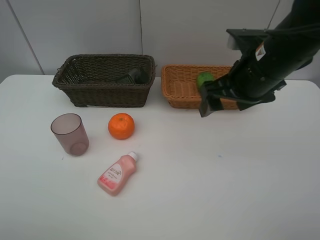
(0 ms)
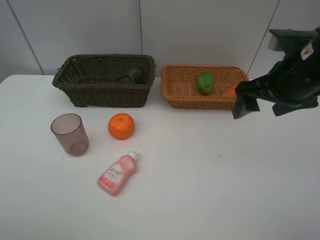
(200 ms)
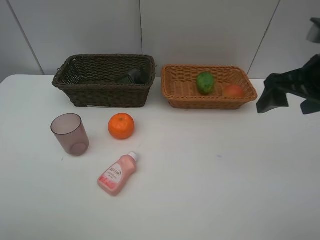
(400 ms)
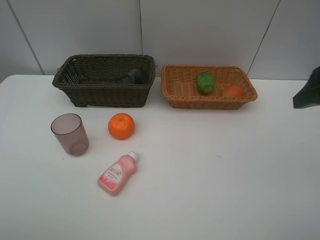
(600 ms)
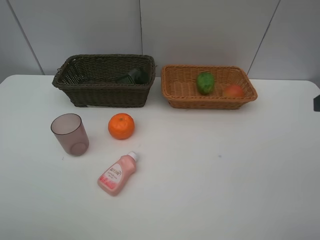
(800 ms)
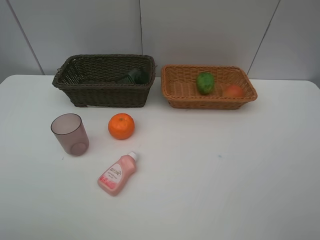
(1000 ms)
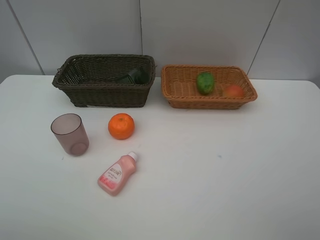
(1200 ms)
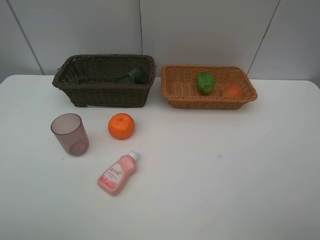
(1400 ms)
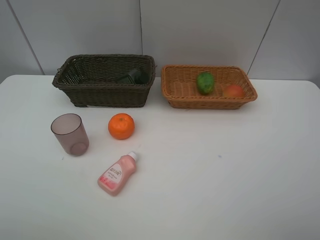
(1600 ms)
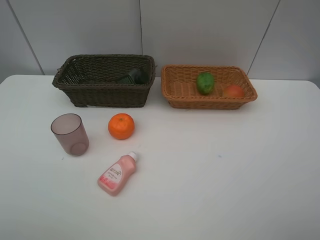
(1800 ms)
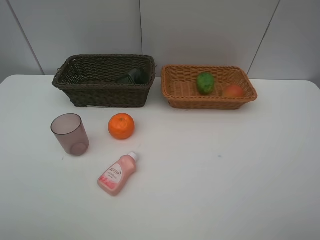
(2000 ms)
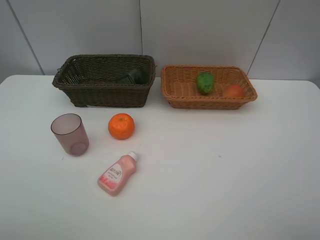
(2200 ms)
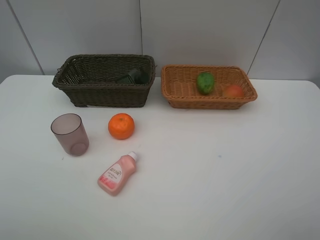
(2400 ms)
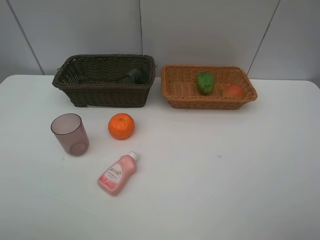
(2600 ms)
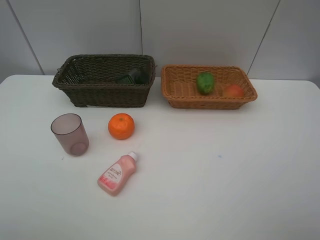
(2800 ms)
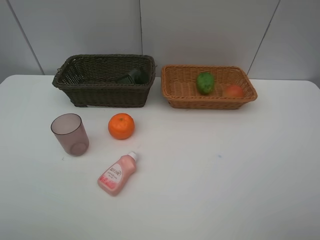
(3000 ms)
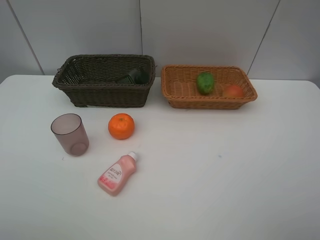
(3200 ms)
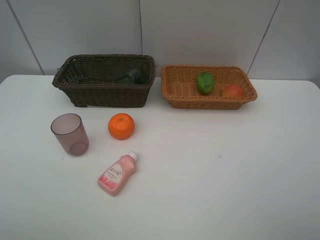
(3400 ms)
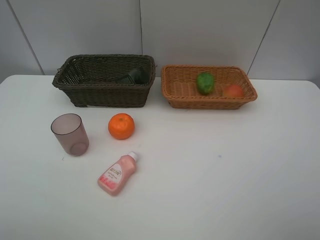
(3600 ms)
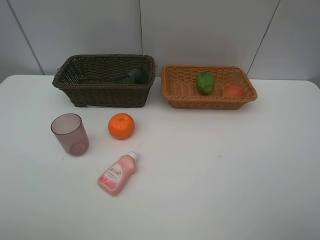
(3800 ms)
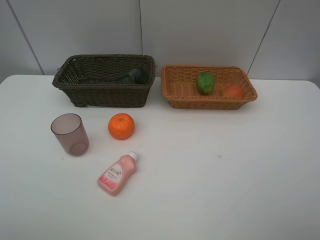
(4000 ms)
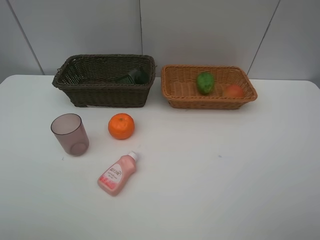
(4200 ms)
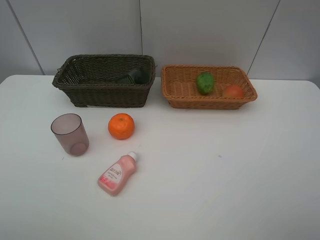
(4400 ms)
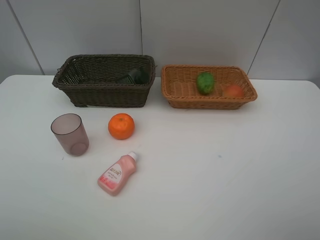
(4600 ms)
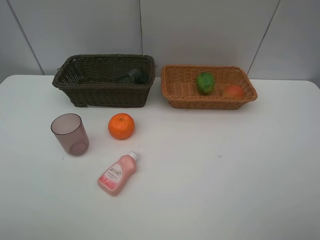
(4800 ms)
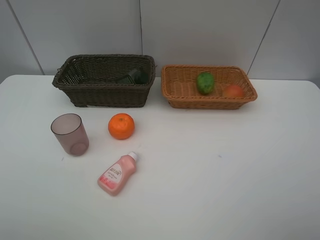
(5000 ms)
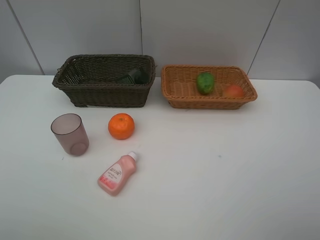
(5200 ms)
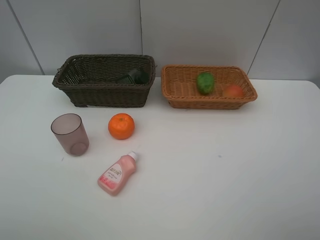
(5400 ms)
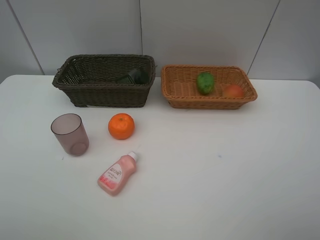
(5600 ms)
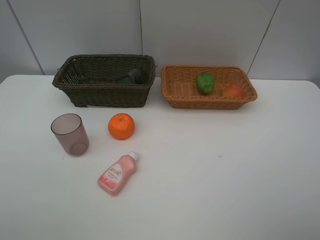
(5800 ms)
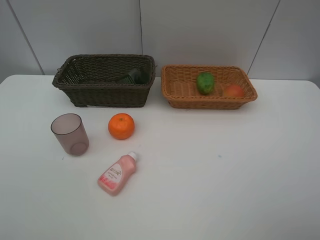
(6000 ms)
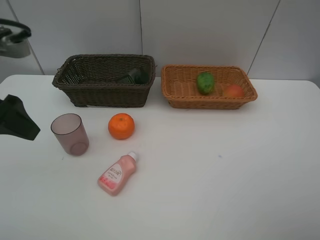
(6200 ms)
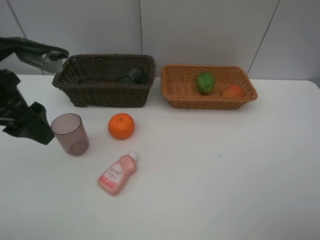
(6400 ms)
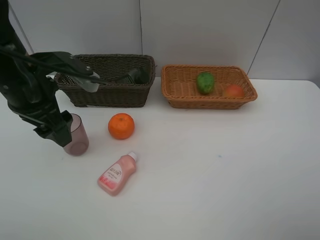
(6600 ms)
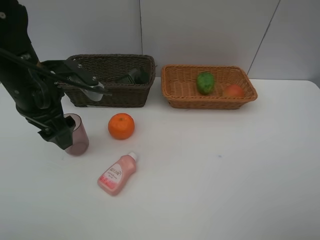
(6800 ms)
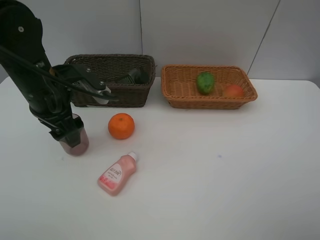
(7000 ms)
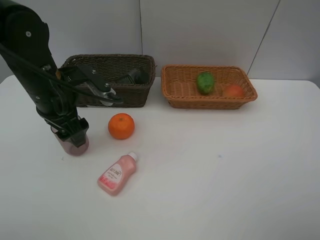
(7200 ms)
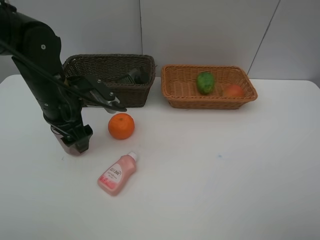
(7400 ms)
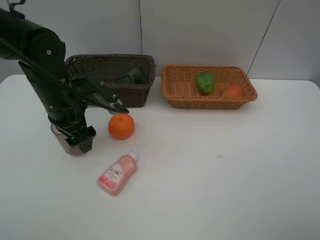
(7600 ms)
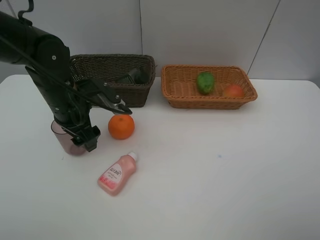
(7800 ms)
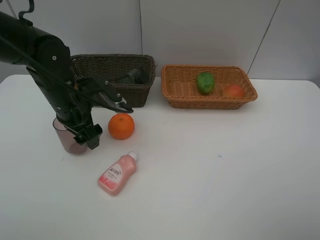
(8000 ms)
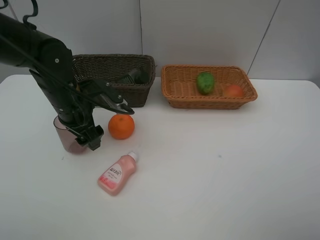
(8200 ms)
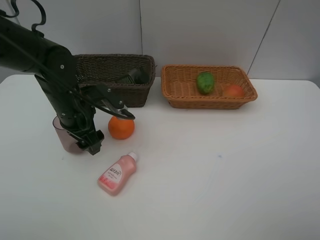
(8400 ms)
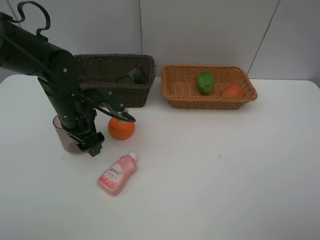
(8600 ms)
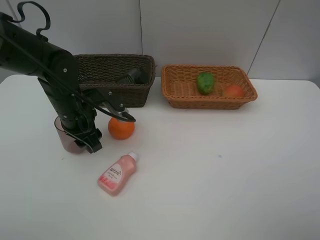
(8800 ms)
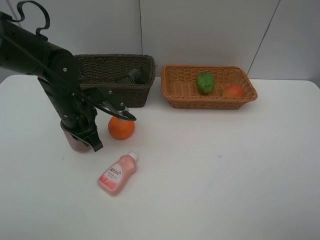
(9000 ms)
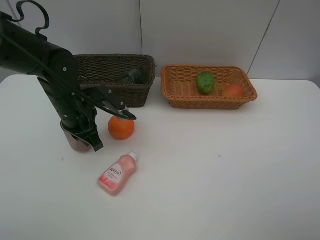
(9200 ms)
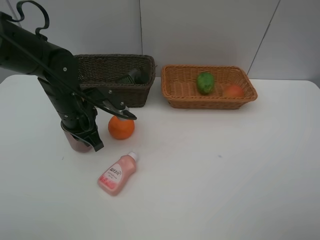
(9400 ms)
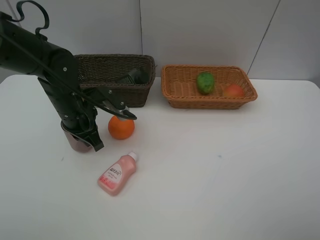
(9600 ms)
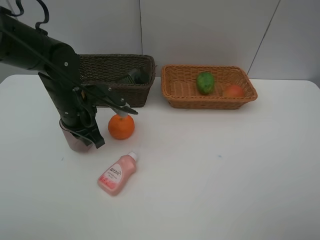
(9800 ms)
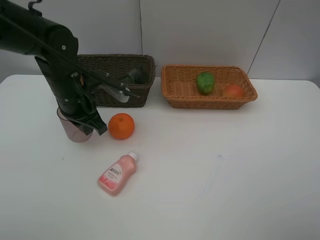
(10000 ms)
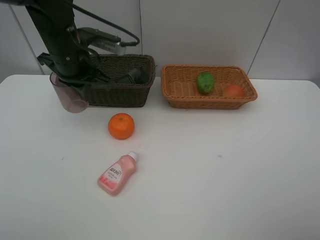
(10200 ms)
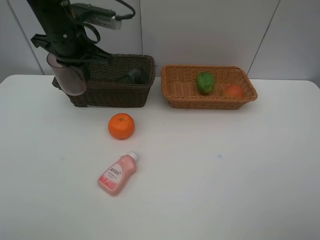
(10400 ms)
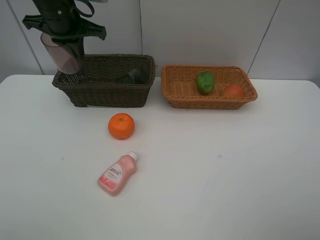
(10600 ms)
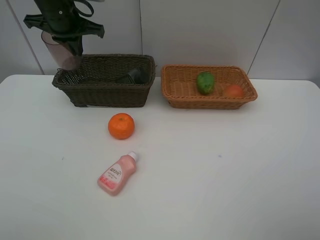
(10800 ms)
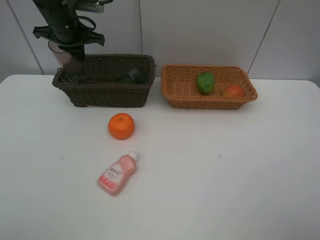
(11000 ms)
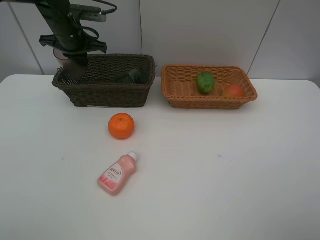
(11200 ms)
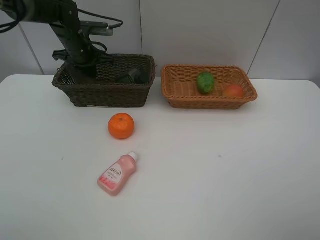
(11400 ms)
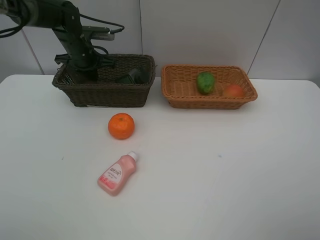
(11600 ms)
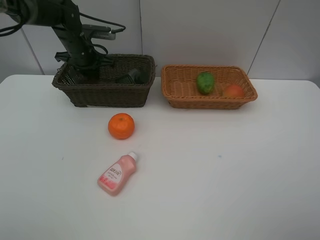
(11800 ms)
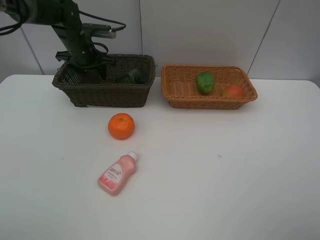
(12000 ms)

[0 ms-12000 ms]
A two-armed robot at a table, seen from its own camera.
Task of the whole recording: place multiple objects separately in different baskets.
0 ms to 1600 ms: The right gripper shifts approximately 30 cm backward and to the right.
6000 ms to 7600 ms: The left gripper travels forward, downward and to the right by approximately 25 cm.
7600 ms to 9000 ms: The left gripper closes up.
9000 ms to 10400 ms: The left gripper travels upward and forward by some 15 cm.
10400 ms to 12000 ms: The left gripper travels forward and downward by some 15 cm, and opens up.

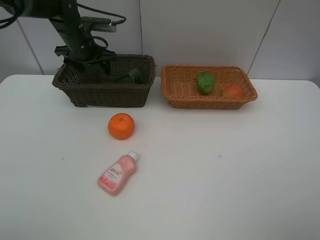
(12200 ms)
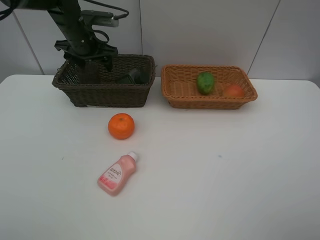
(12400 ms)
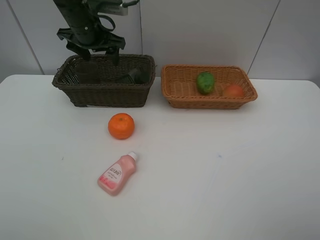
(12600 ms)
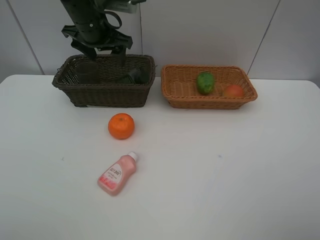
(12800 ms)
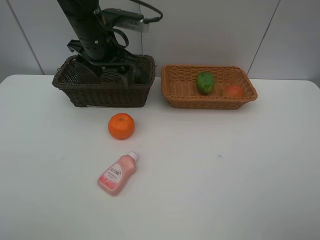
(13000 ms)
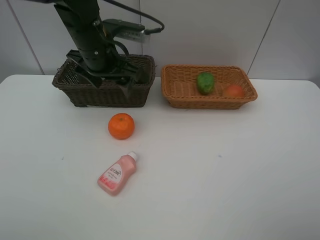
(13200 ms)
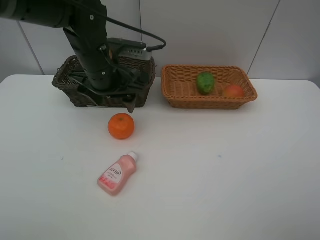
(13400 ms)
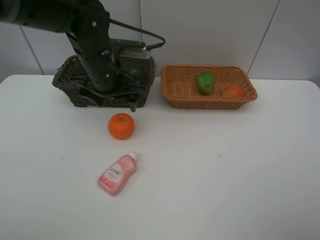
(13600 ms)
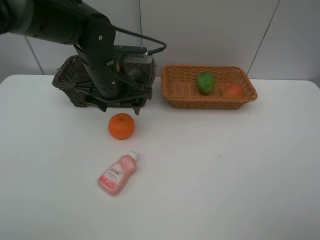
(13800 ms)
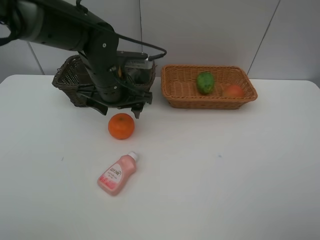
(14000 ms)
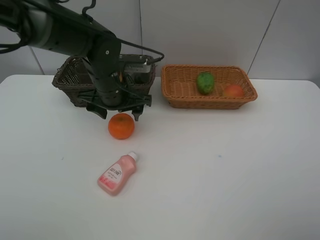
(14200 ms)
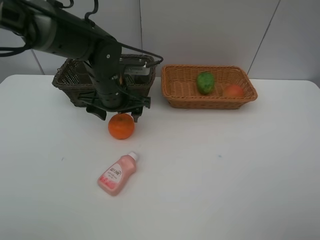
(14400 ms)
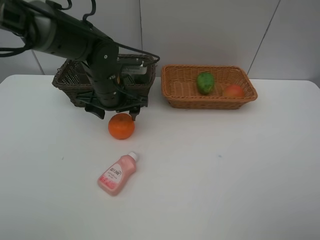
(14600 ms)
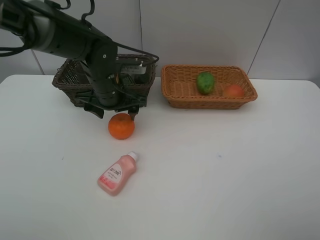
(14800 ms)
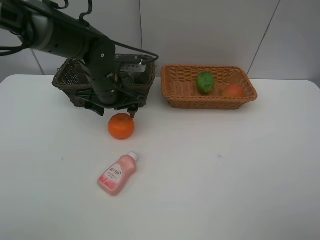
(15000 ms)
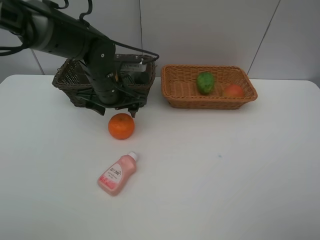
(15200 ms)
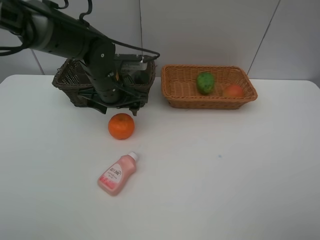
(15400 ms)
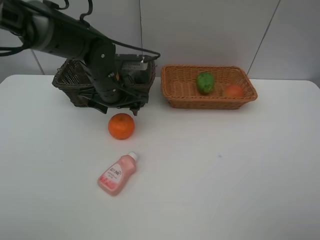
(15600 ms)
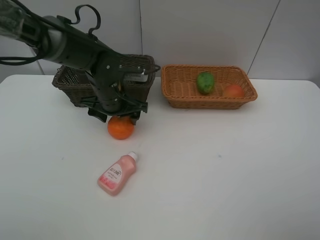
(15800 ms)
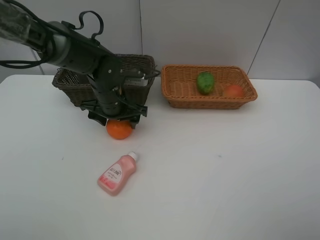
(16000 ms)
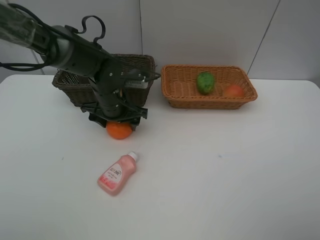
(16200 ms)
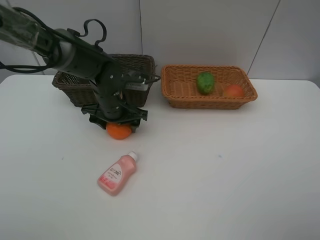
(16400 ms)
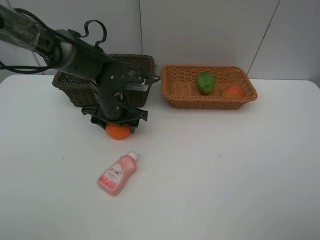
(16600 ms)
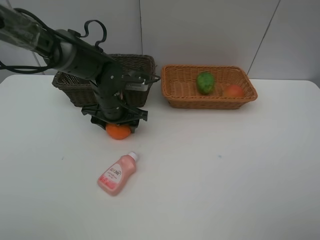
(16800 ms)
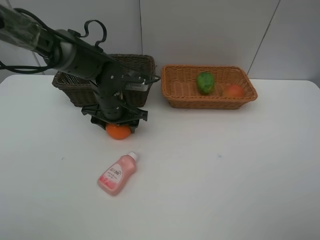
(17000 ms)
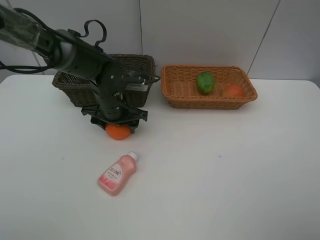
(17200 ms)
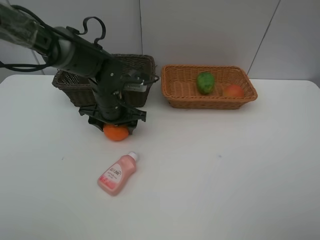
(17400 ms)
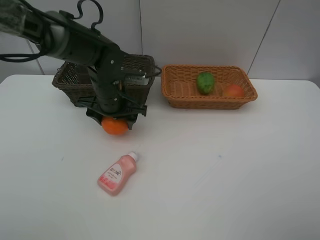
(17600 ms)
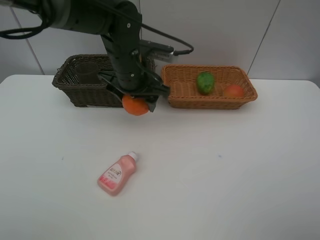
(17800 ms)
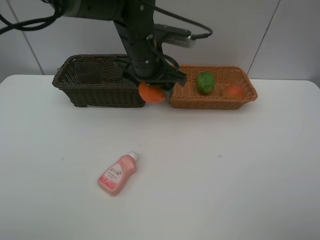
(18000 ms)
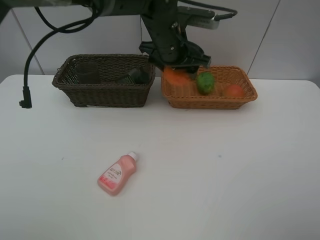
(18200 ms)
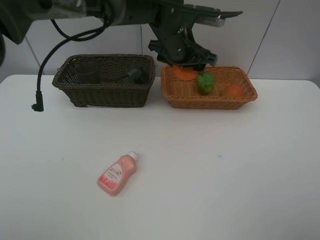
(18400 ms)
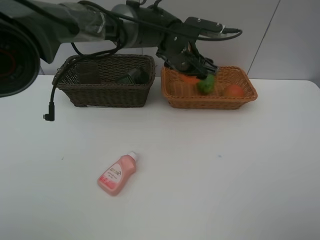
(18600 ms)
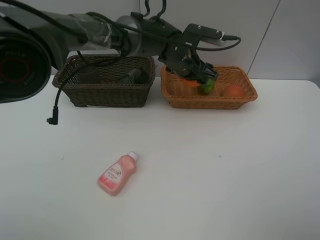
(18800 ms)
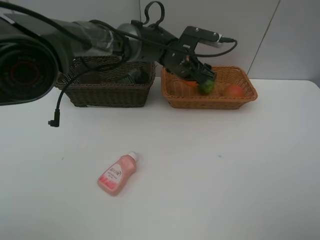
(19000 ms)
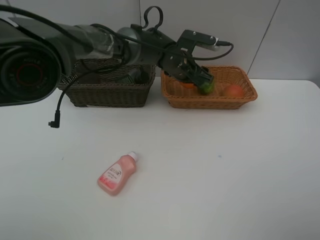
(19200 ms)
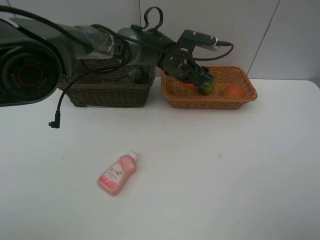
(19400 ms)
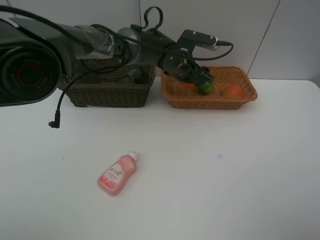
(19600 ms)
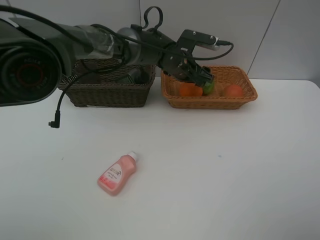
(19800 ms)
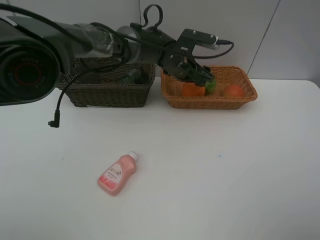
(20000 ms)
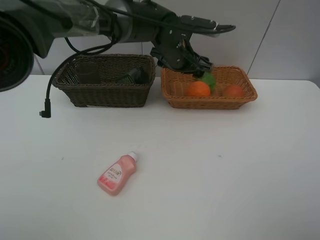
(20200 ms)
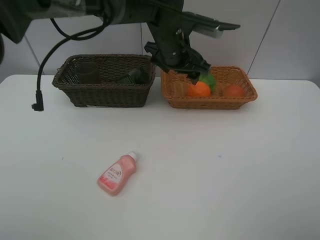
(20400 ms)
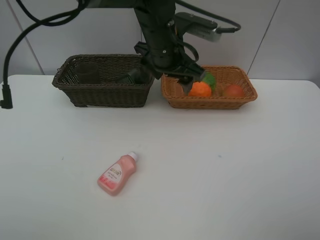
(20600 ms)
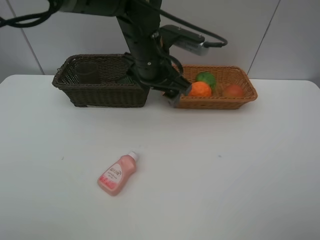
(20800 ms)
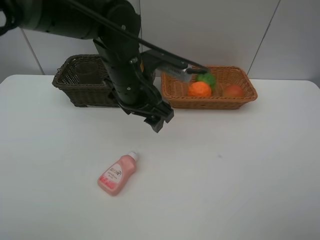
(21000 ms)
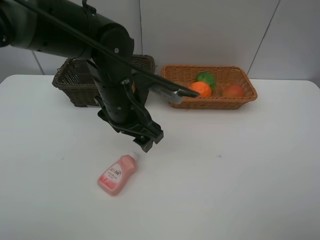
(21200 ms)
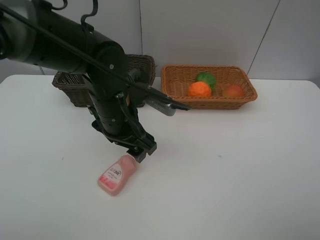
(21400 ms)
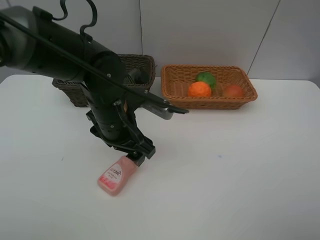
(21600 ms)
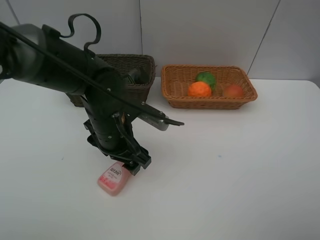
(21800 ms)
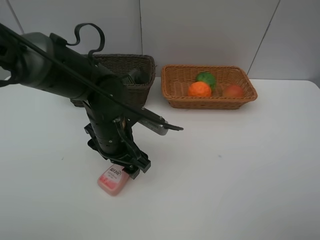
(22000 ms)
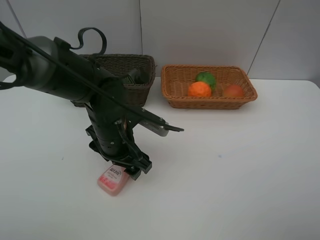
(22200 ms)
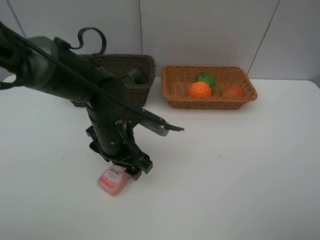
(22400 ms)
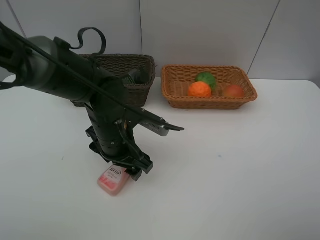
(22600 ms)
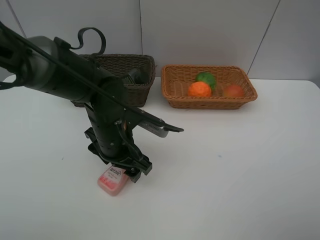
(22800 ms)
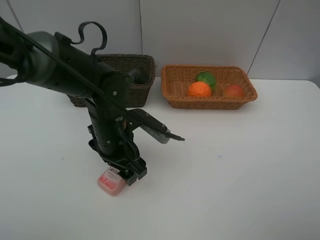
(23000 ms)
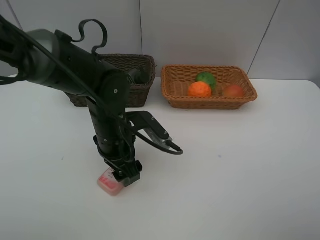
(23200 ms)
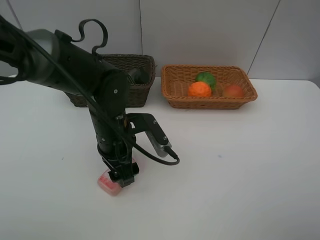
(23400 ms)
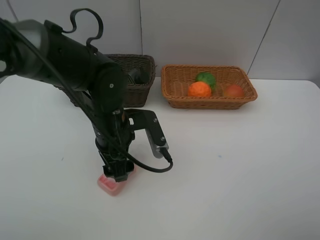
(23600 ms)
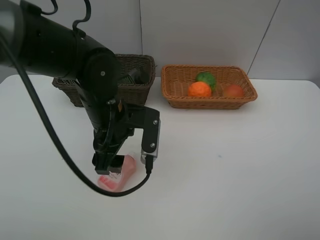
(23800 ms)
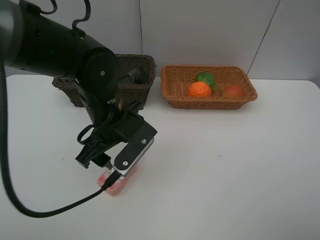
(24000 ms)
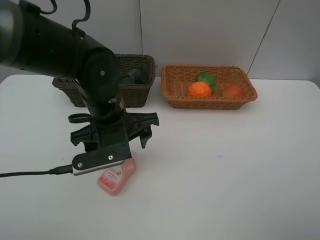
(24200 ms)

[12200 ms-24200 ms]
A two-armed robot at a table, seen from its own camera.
Task of the whole recording: place multiple objects separately in different baskets.
12200 ms to 13800 ms: The left gripper goes some 20 cm backward and to the right.
13800 ms to 15200 ms: The grippers move only a little.
15200 ms to 16600 ms: The left gripper moves downward, about 5 cm.
16600 ms to 18200 ms: The left gripper travels upward and to the right by roughly 20 cm.
18200 ms to 19800 ms: The left gripper goes approximately 10 cm downward.
19800 ms to 21200 ms: The left gripper heads backward and to the left, covering roughly 20 cm.
21200 ms to 22600 ms: The left gripper travels downward by about 5 cm.
